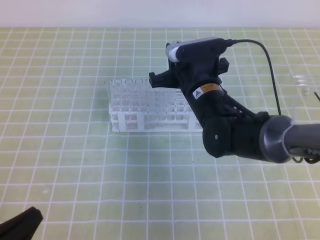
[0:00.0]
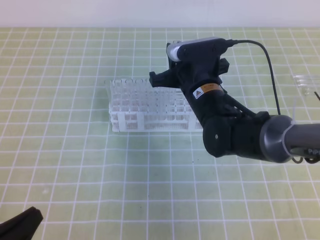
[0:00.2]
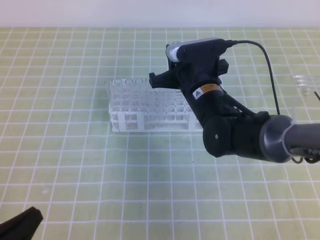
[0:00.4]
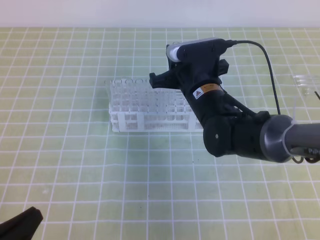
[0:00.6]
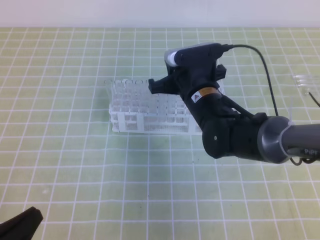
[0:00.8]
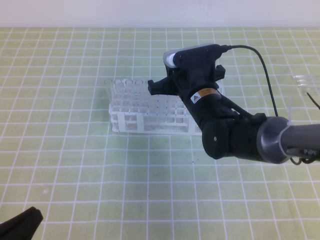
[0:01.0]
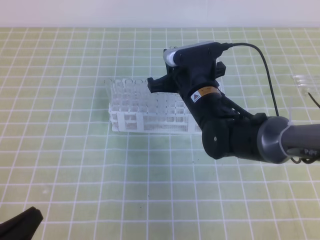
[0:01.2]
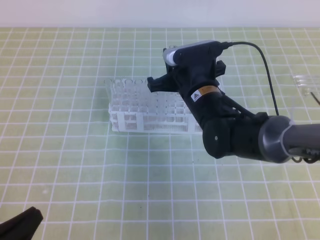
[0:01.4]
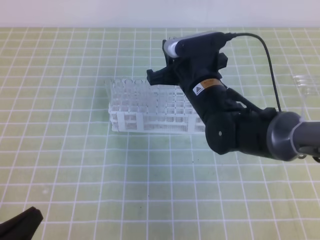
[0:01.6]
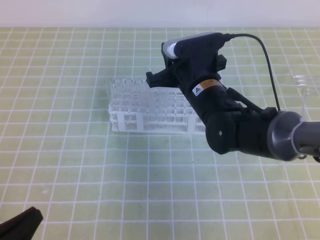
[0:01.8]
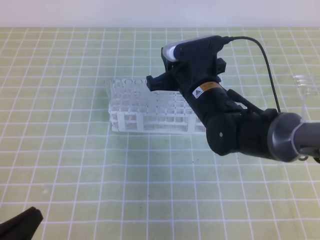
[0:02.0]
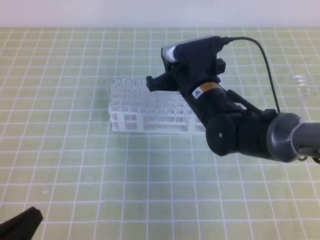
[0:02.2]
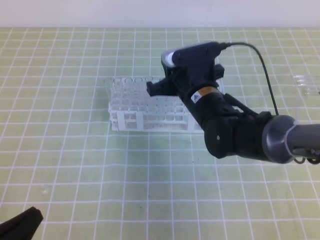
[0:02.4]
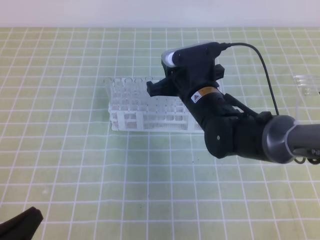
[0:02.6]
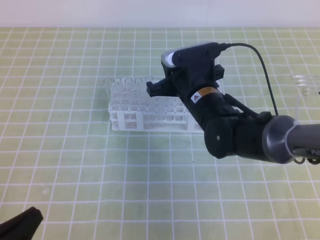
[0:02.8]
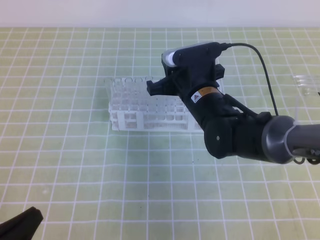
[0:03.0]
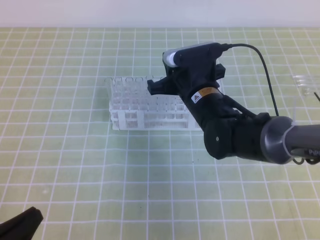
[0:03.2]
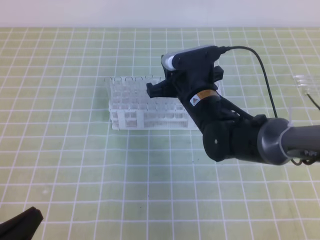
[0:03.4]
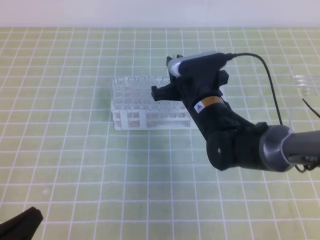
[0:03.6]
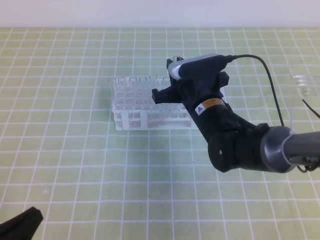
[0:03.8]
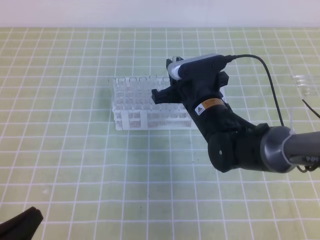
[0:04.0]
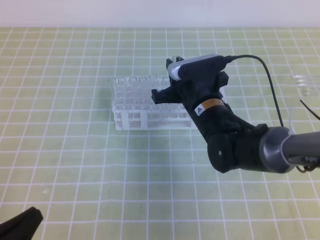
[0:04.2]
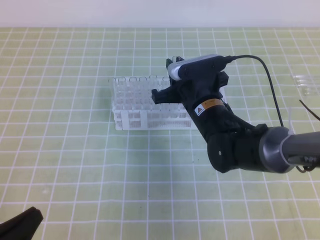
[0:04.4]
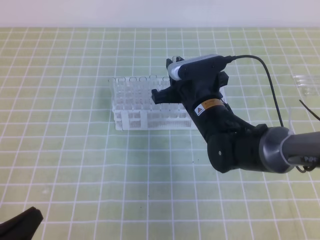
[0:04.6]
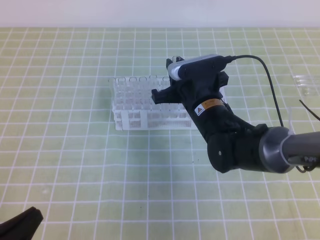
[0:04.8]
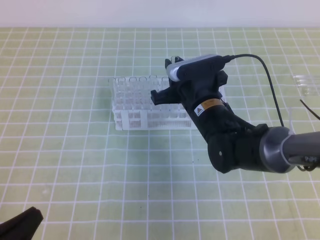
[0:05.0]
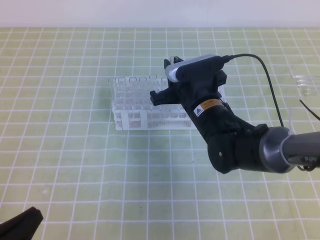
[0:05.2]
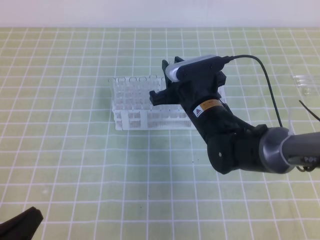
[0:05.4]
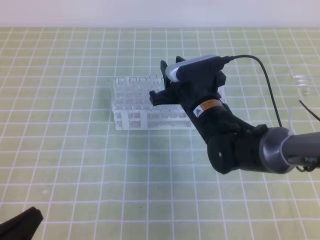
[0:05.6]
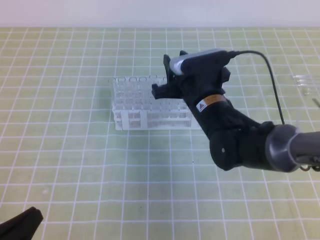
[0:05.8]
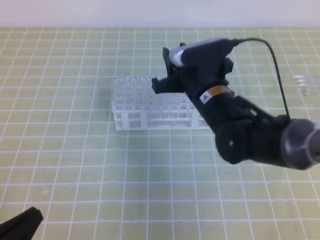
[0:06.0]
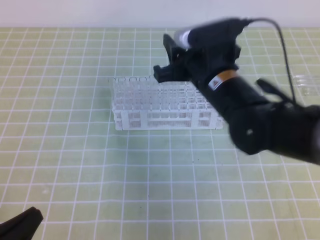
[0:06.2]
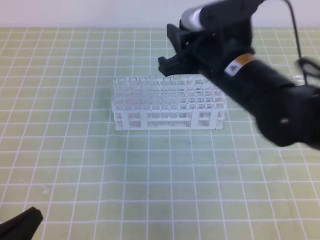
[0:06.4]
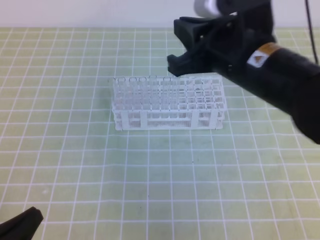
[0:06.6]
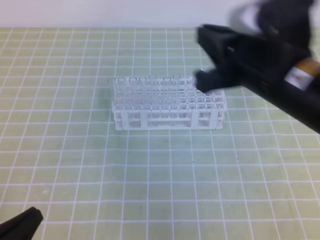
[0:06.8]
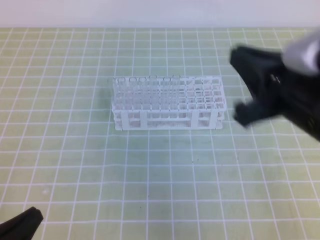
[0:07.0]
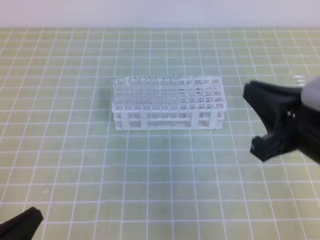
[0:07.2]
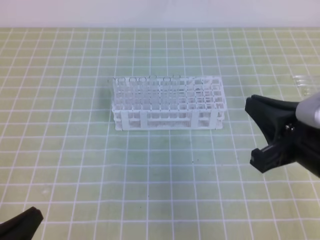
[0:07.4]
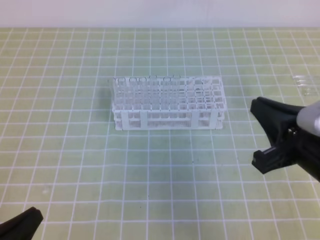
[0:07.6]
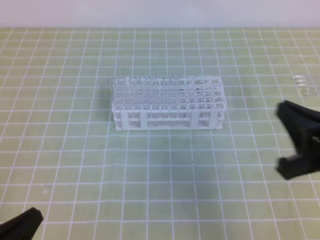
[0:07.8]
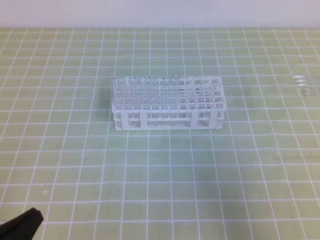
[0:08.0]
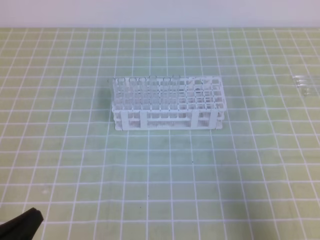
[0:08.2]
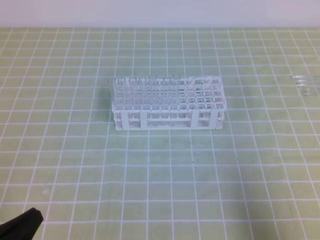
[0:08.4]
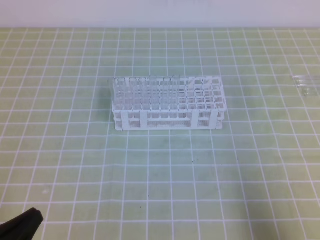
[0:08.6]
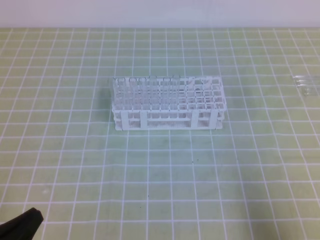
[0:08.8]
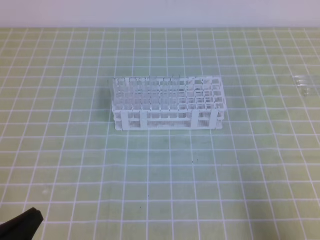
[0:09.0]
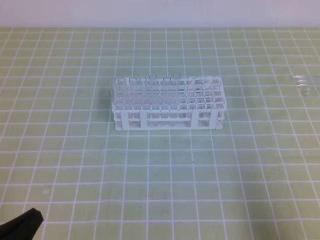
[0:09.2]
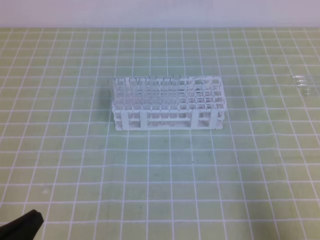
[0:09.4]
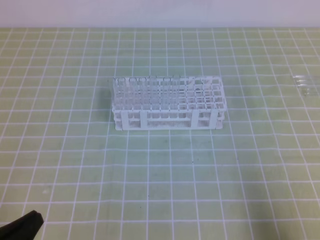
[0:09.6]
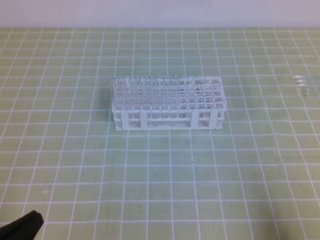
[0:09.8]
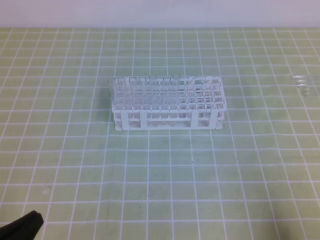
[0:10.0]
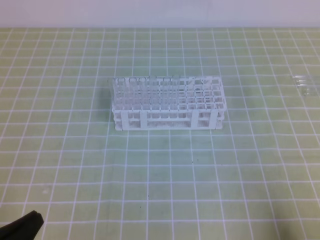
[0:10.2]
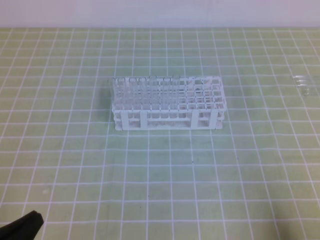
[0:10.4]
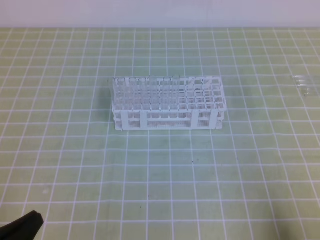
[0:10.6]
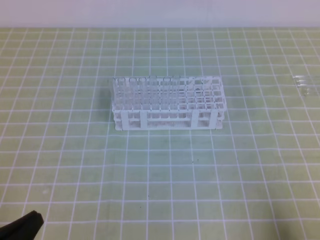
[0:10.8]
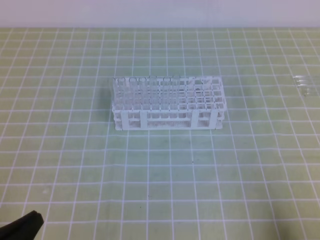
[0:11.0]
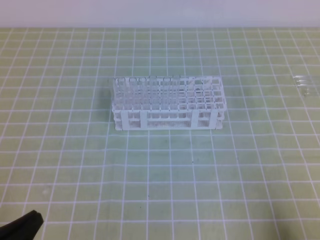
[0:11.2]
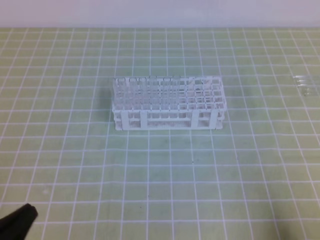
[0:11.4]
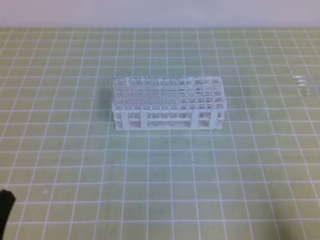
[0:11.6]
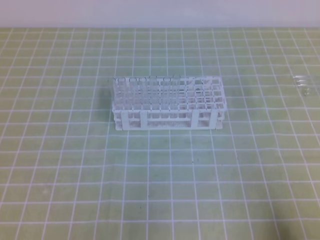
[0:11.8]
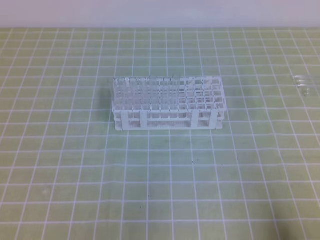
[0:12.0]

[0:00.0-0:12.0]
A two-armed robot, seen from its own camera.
0:00.0 to 0:01.6: The grippers make only small movements.
0:01.6 to 0:03.0: Both grippers stay put.
0:03.0 to 0:04.4: There are only small adjustments of the grippers.
0:04.4 to 0:06.0: The right gripper opens.
0:06.0 to 0:07.6: The right gripper is displaced backward and to the right by roughly 20 cm, and closes its fingers.
0:07.6 to 0:09.0: The right gripper shifts some 15 cm backward, to the right and downward.

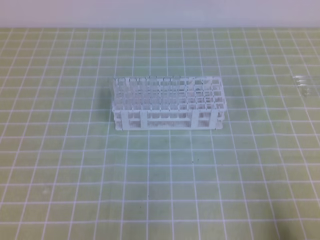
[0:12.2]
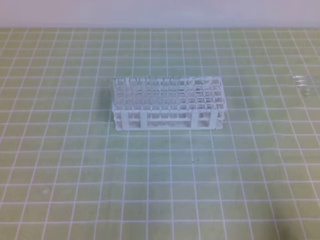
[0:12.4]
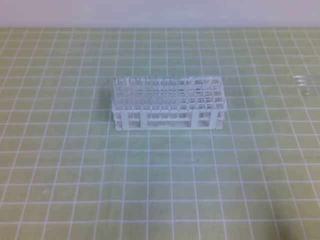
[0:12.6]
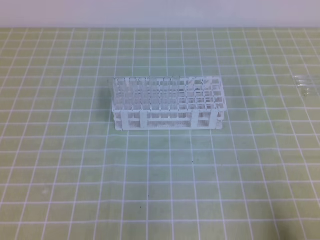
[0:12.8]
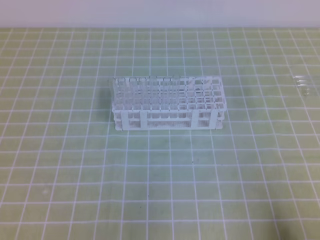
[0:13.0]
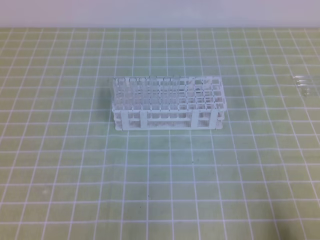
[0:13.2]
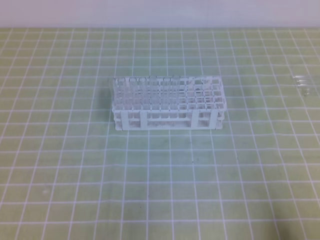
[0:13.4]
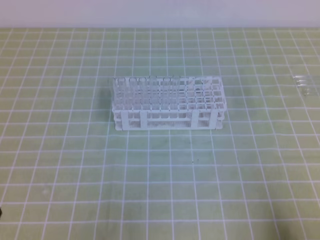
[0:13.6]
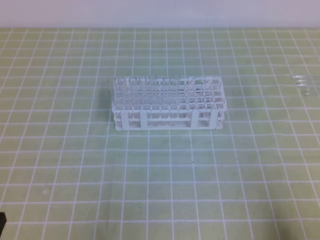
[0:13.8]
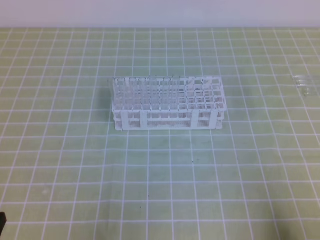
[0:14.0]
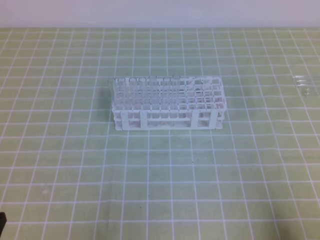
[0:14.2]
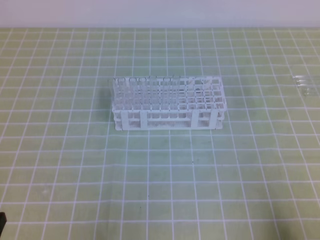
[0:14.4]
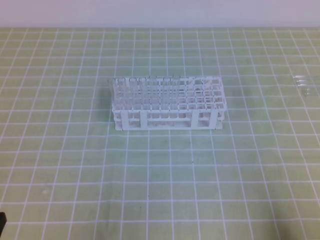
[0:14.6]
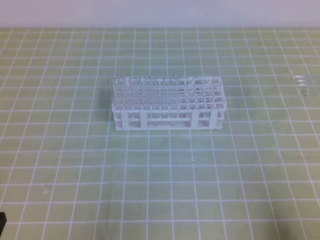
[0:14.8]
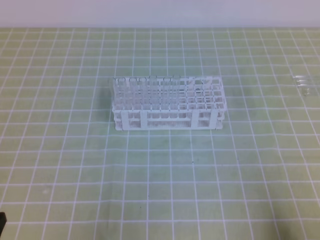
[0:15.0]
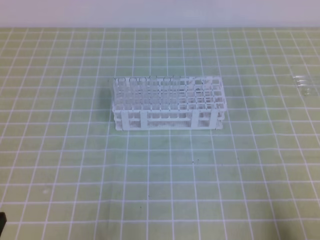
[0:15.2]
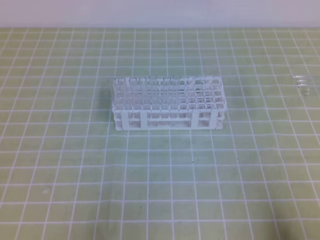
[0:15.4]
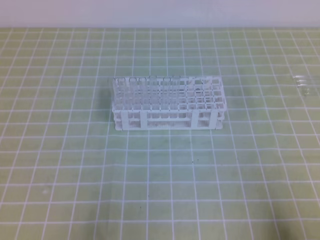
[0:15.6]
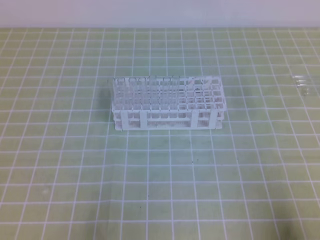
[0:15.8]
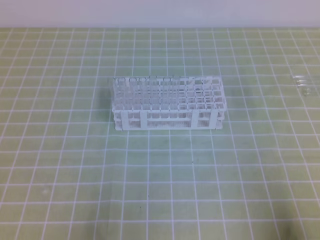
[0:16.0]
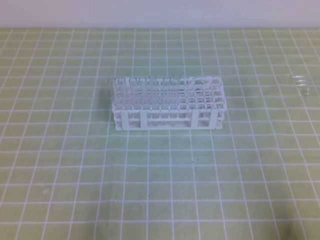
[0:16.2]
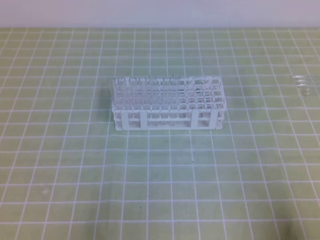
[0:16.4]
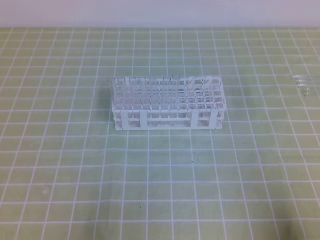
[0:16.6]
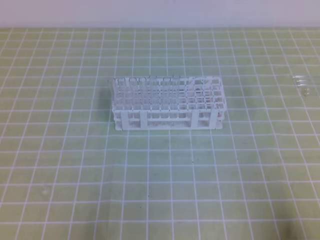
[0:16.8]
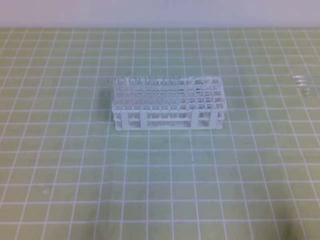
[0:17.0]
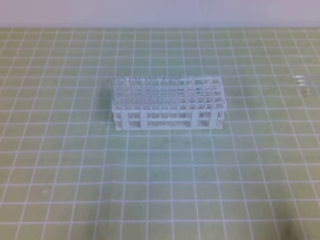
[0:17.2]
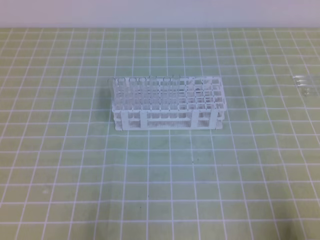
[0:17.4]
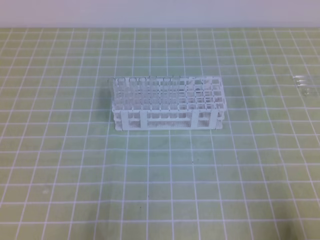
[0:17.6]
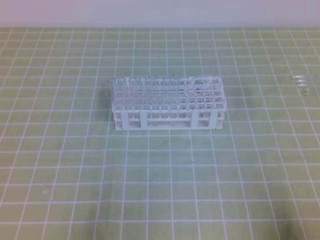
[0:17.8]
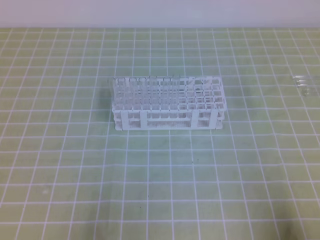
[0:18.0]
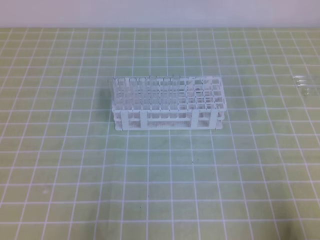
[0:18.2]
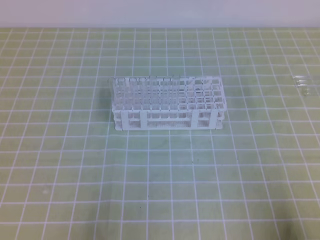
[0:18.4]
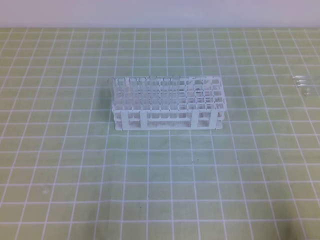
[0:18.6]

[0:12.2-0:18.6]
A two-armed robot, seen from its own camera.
0:13.8 to 0:15.4: Neither gripper changes place.
0:17.0 to 0:18.6: Both grippers stay about where they are.

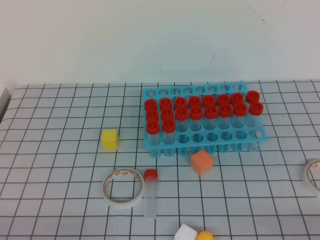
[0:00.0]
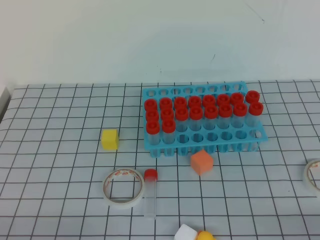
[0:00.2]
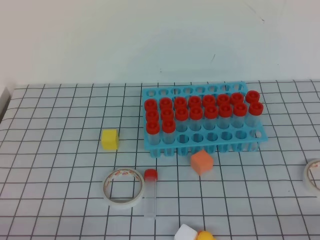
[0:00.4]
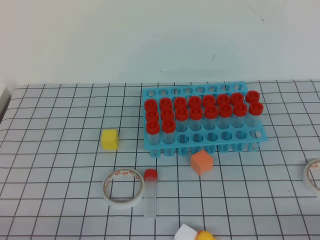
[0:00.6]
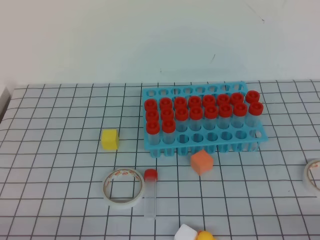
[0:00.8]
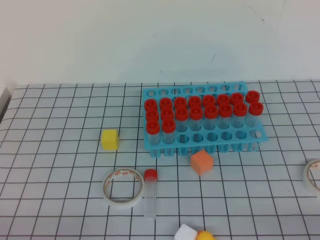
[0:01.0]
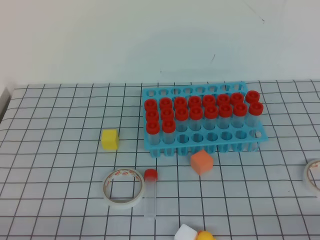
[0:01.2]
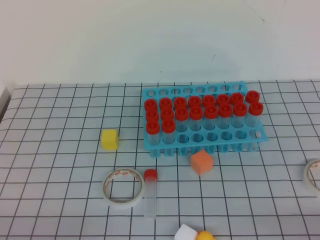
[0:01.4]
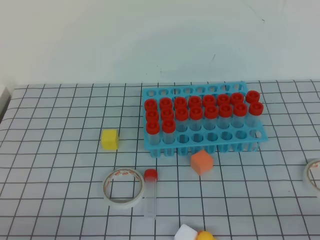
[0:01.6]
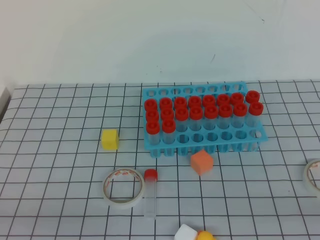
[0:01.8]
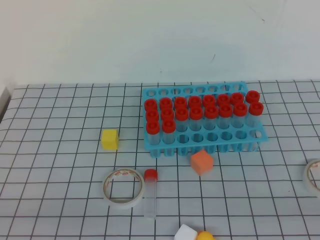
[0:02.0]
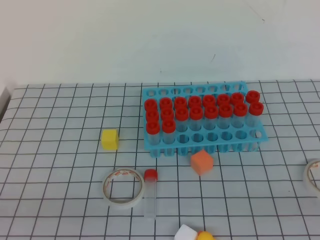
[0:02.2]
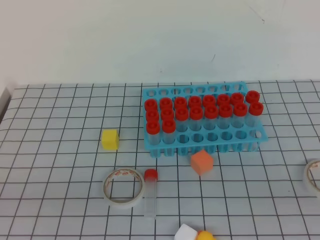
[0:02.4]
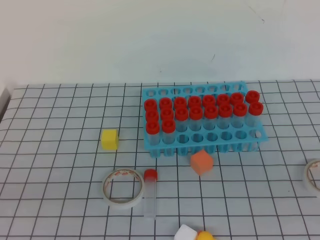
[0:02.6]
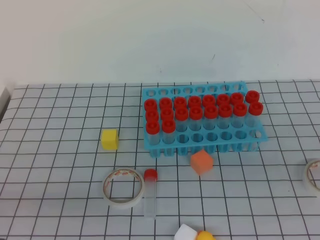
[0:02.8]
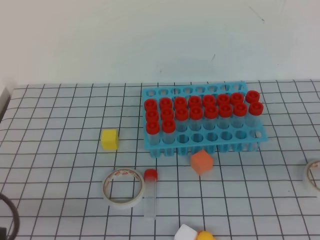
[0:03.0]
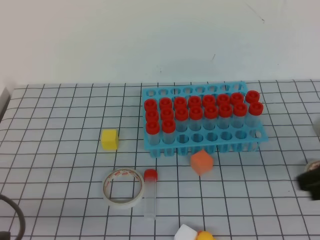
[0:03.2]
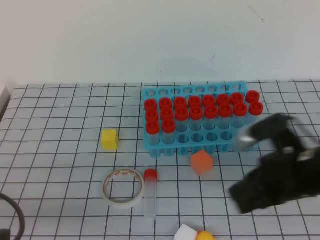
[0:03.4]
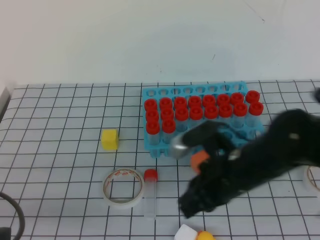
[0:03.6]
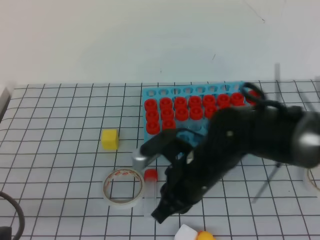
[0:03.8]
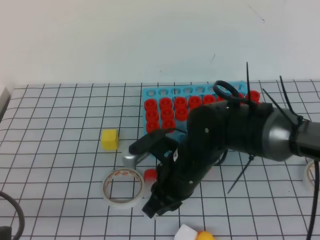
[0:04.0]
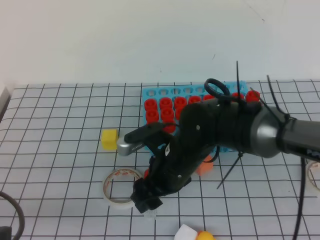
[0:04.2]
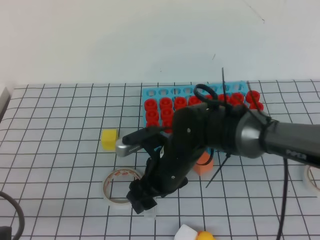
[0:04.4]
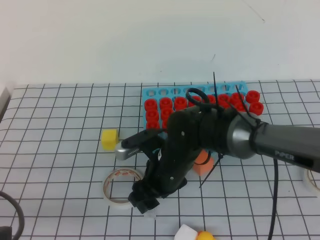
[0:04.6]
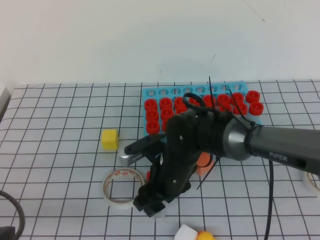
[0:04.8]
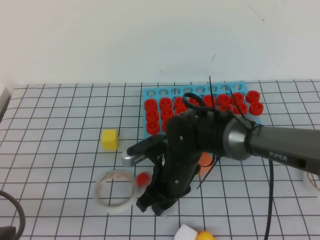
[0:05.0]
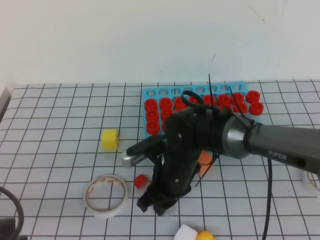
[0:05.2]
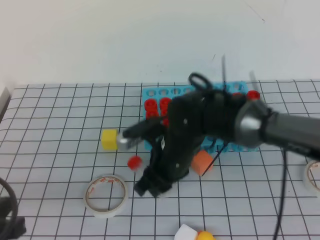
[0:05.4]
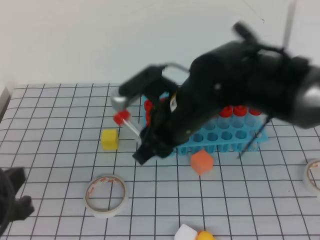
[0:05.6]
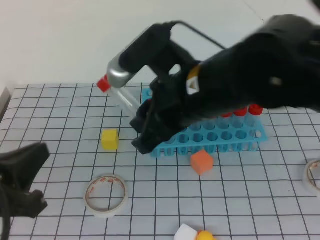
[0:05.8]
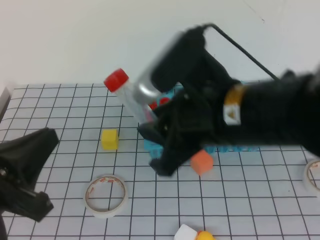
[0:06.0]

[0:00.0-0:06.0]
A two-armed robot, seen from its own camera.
0:03.0 to 0:04.4: The right gripper shifts about 35 cm to the left, forward and downward, and opens its fingers.
0:04.4 to 0:06.0: The right gripper goes approximately 20 cm upward and backward, and closes up. Meanwhile the left gripper heads upward, covering approximately 5 cm.
